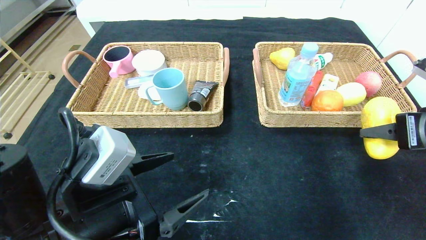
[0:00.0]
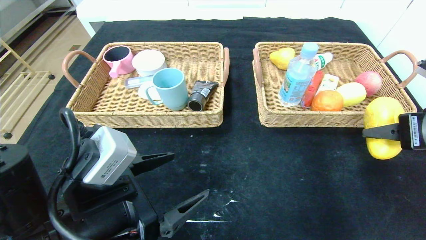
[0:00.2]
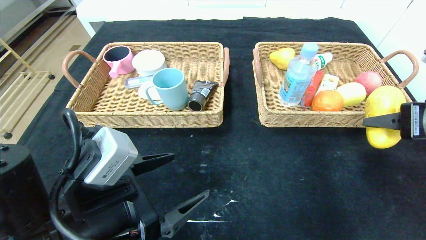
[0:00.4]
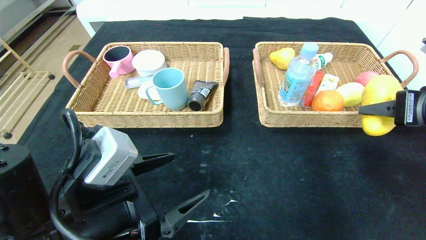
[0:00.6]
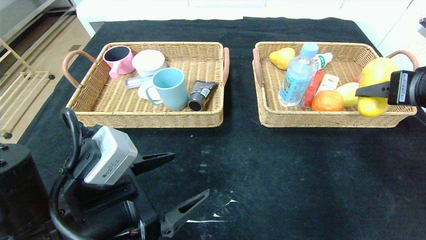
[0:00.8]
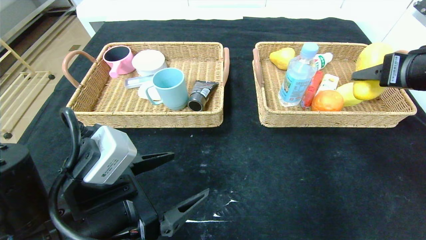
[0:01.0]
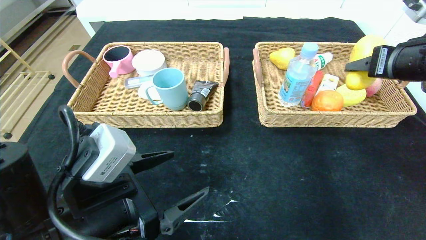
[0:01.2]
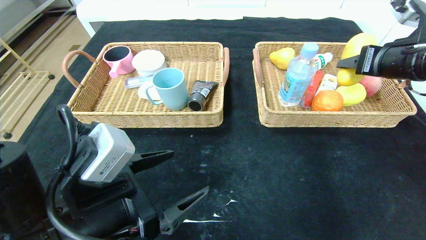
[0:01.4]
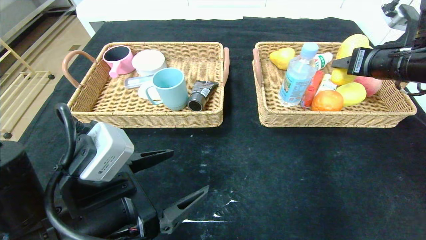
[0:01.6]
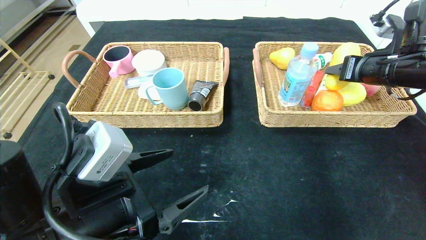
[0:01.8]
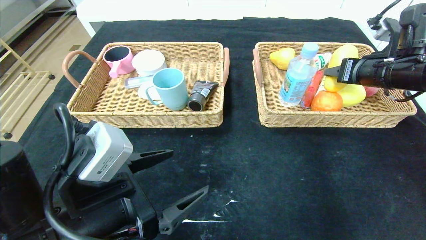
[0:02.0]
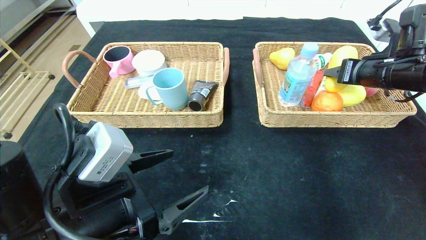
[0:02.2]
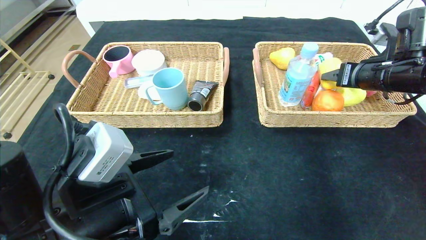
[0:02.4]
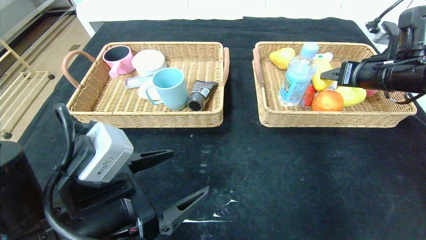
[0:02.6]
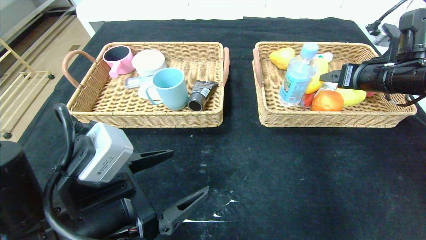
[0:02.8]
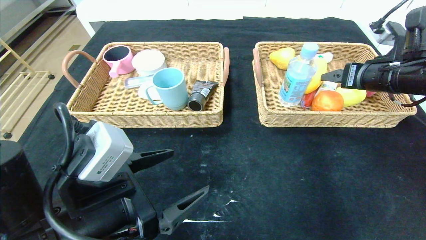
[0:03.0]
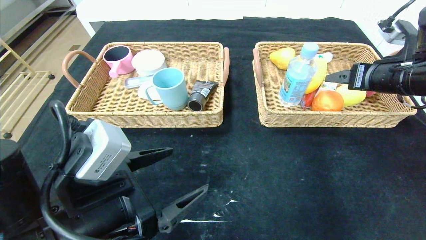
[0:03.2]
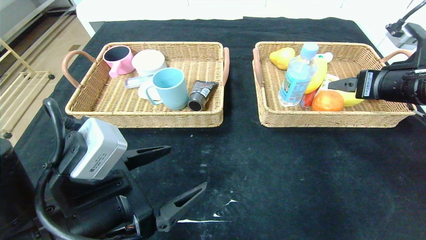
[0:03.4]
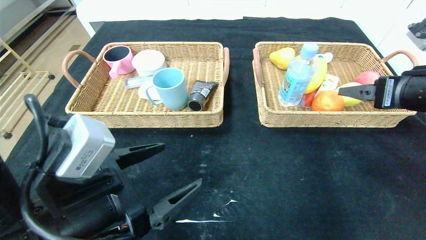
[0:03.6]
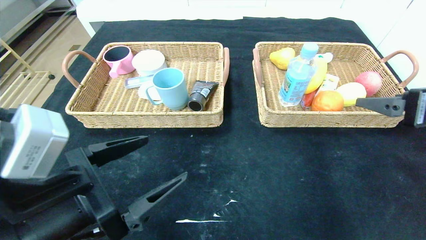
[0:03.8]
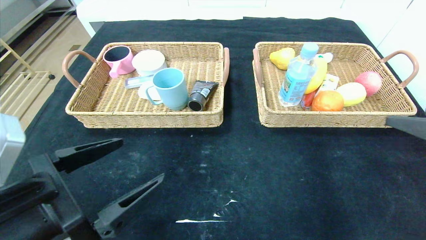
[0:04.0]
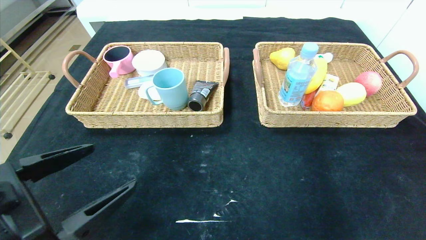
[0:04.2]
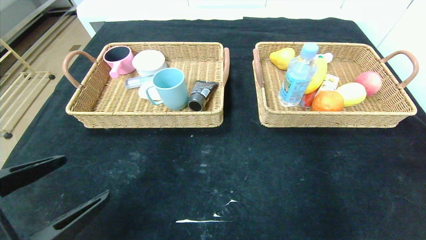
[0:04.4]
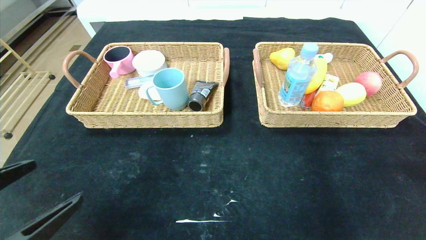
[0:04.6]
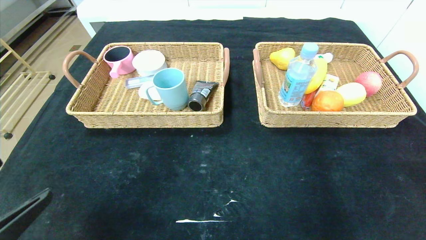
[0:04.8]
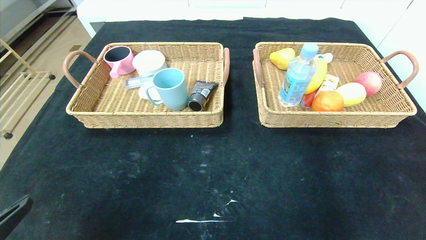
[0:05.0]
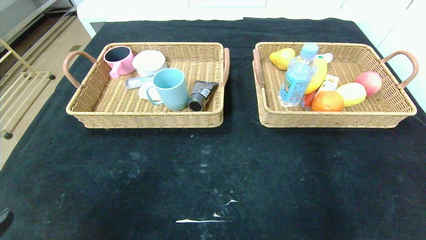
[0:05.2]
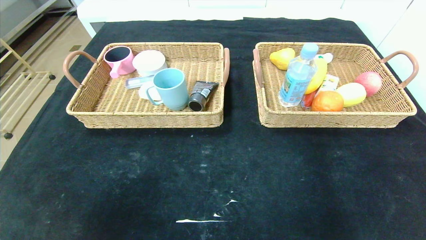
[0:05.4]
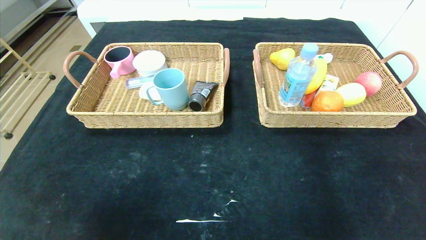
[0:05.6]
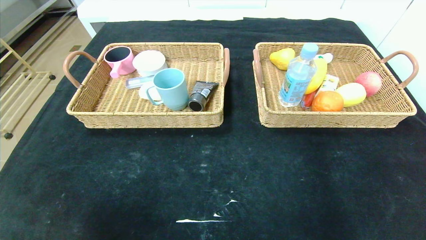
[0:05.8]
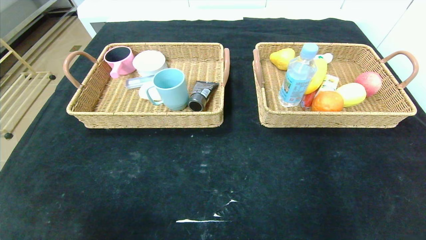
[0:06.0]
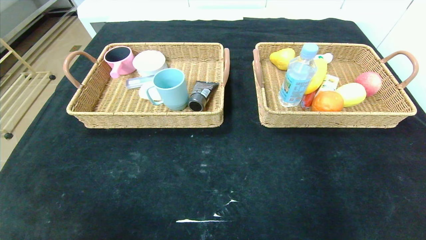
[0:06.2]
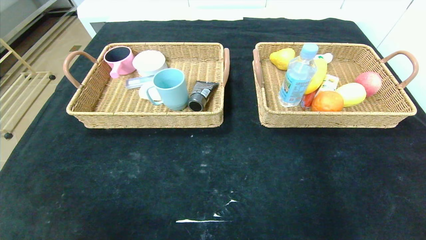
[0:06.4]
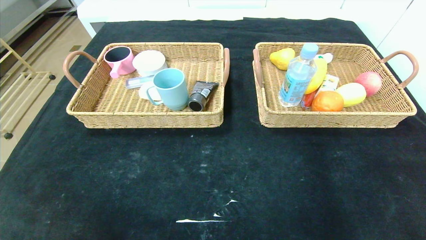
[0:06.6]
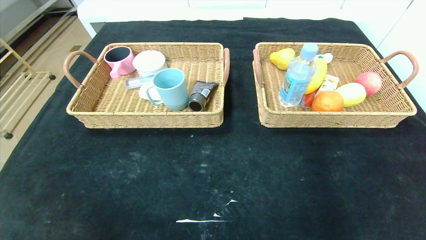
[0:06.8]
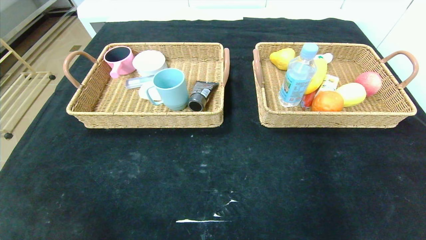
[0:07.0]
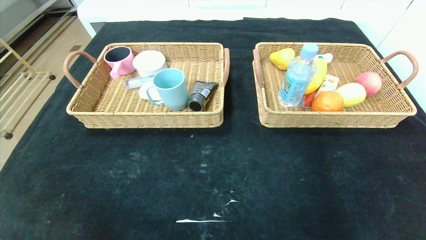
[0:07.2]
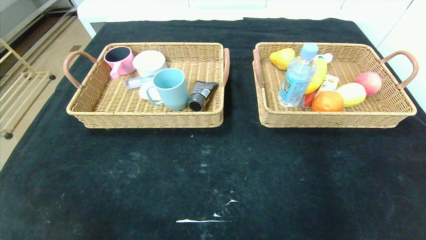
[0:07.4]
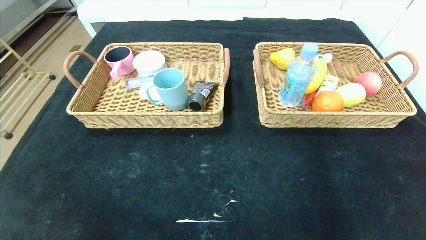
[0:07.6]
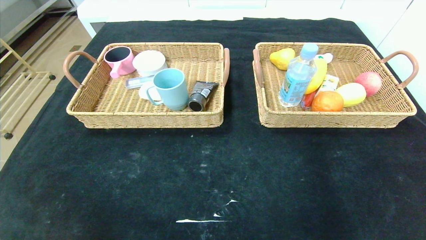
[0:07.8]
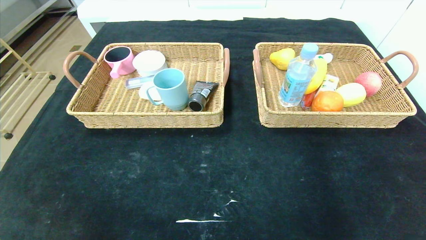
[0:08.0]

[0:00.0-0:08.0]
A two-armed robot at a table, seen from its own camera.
Step, 0:00.0 to 0:02.8: Grasp the mango and put it in the right basket.
0:00.0 to 0:01.6: The right gripper moves forward, some 15 cm.
0:01.6 to 0:03.2: The right gripper opens up.
0:03.2 to 0:04.8: The right gripper heads backward, covering roughly 35 cm, while the left gripper goes roughly 15 cm to the left and backward.
0:04.8 to 0:06.4: The left gripper shifts some 15 cm downward and backward.

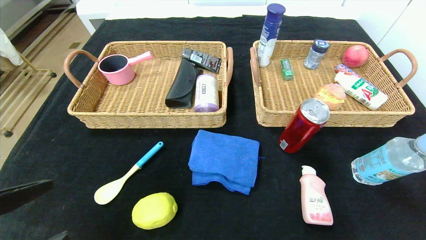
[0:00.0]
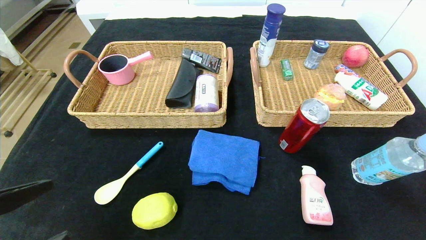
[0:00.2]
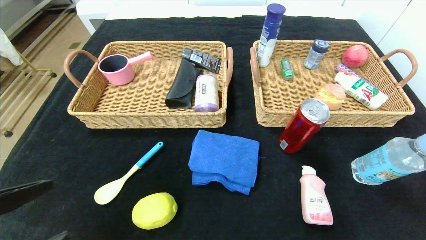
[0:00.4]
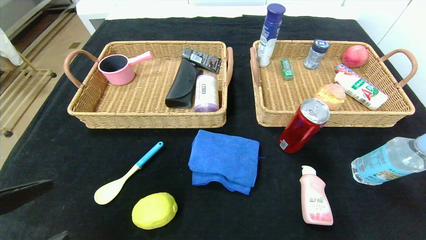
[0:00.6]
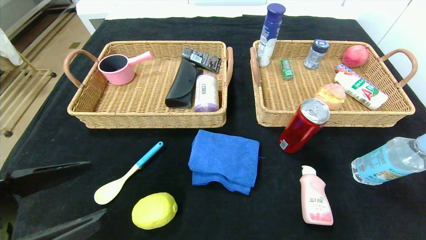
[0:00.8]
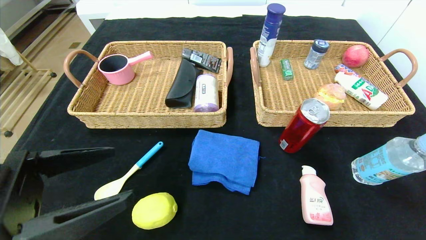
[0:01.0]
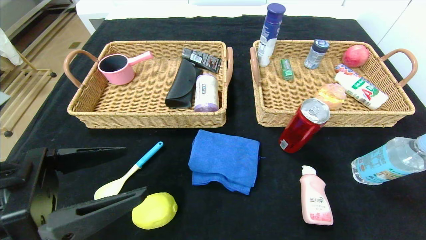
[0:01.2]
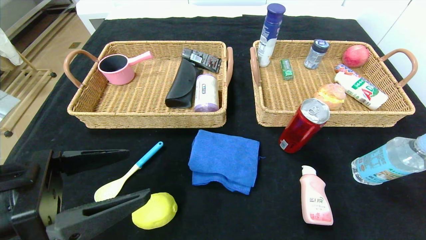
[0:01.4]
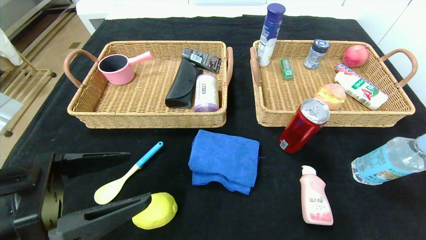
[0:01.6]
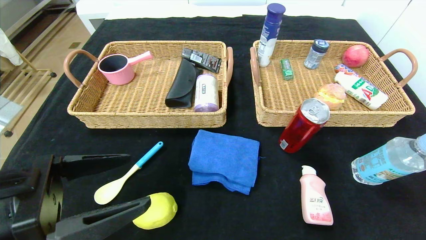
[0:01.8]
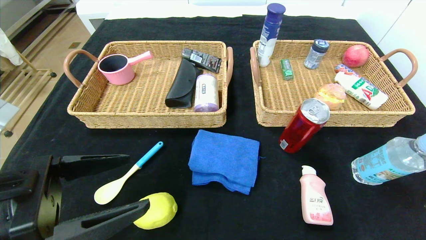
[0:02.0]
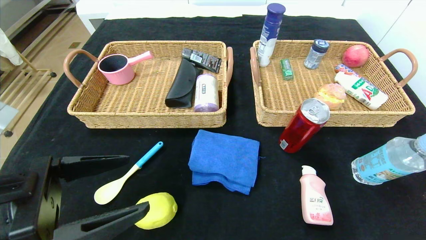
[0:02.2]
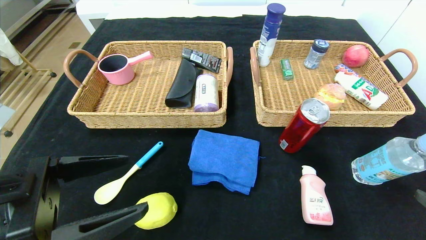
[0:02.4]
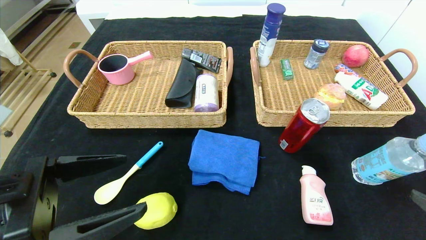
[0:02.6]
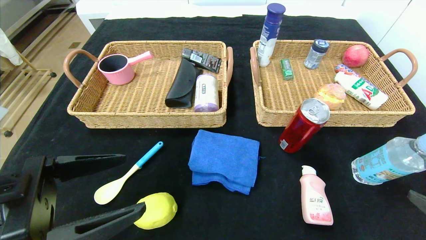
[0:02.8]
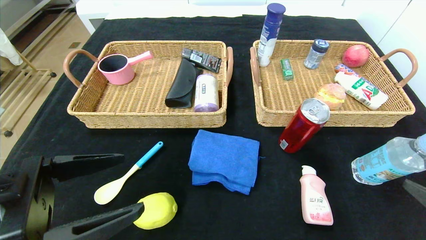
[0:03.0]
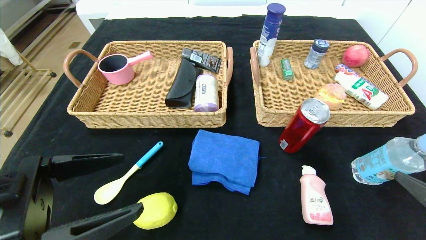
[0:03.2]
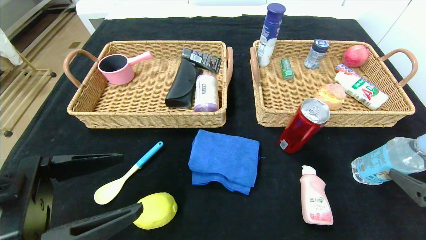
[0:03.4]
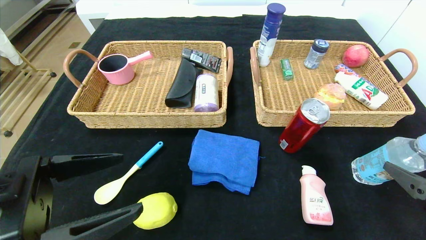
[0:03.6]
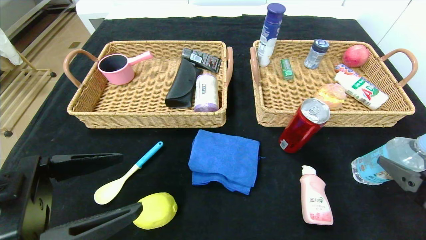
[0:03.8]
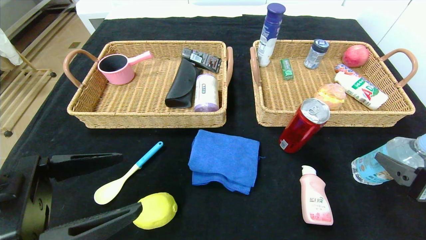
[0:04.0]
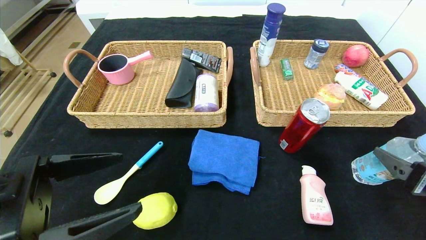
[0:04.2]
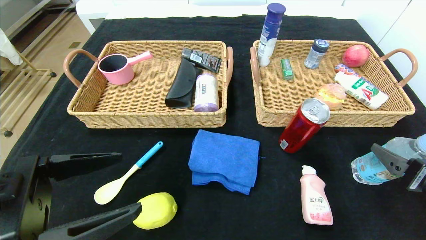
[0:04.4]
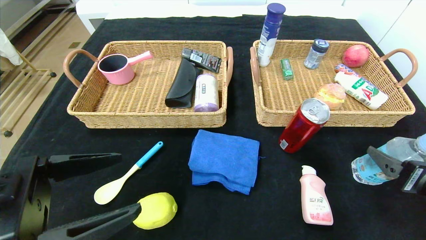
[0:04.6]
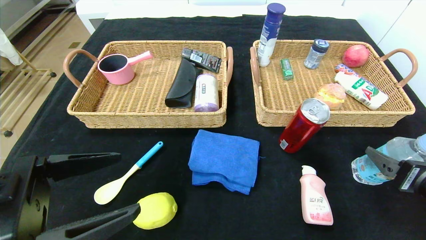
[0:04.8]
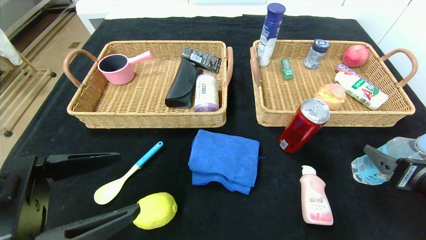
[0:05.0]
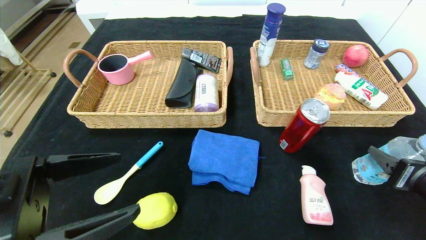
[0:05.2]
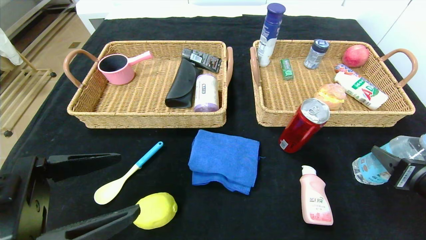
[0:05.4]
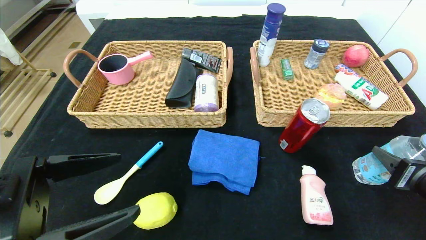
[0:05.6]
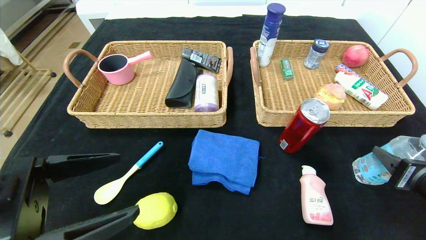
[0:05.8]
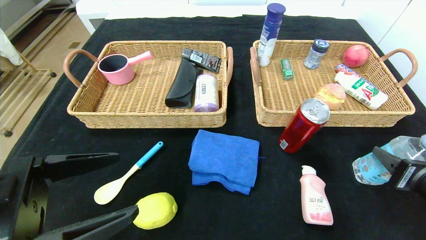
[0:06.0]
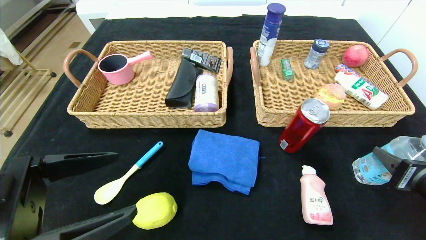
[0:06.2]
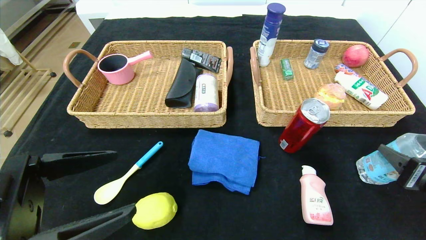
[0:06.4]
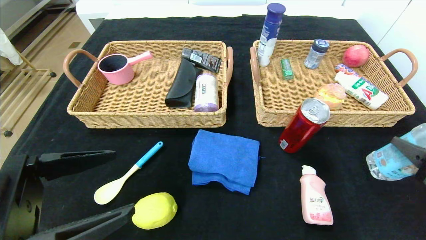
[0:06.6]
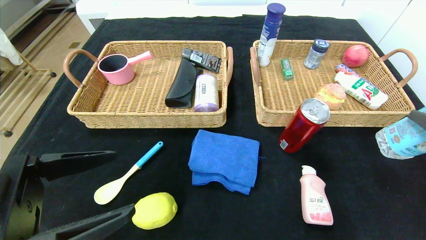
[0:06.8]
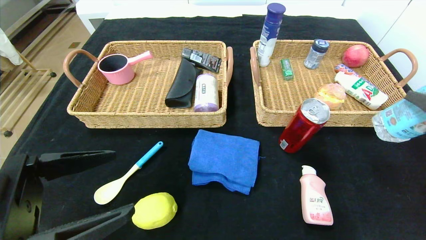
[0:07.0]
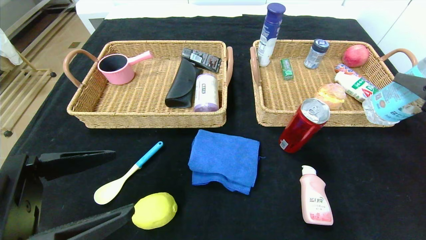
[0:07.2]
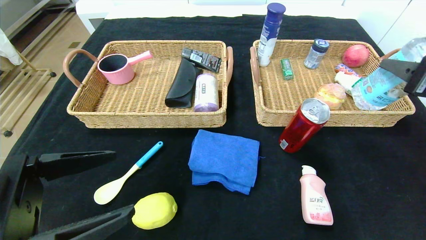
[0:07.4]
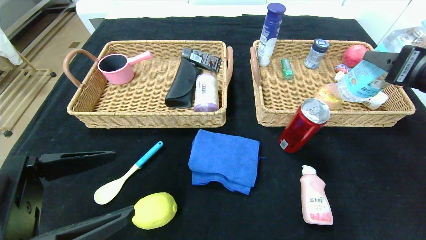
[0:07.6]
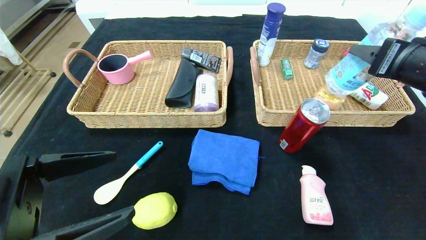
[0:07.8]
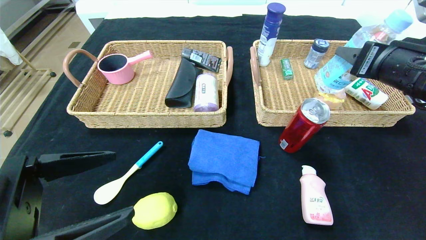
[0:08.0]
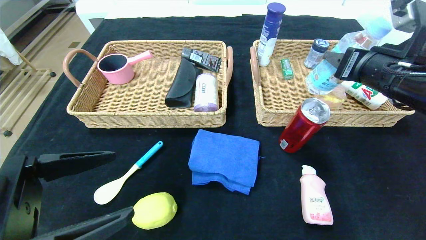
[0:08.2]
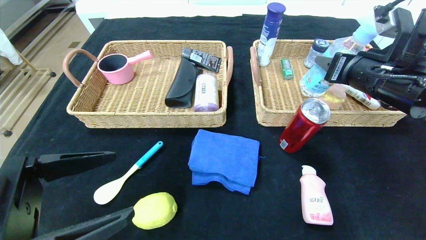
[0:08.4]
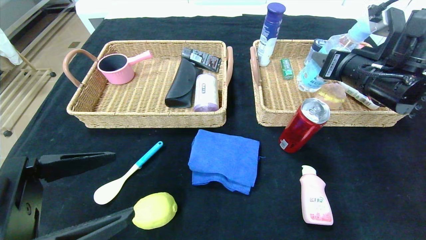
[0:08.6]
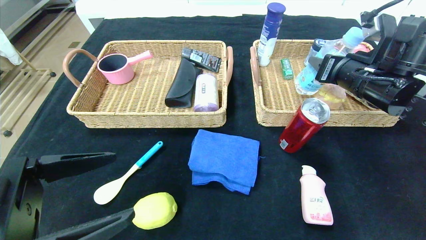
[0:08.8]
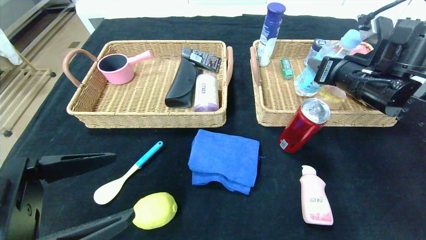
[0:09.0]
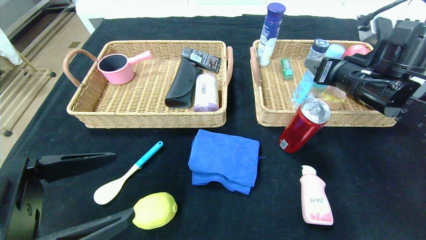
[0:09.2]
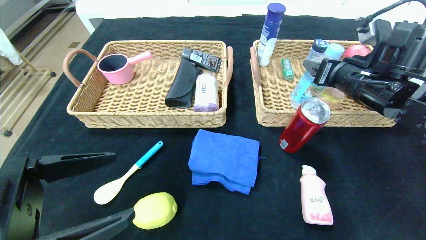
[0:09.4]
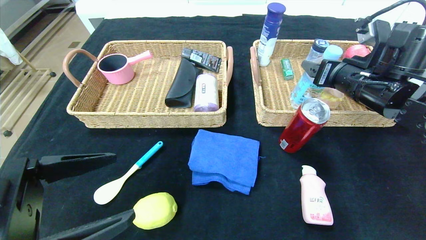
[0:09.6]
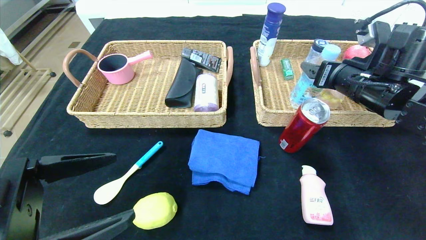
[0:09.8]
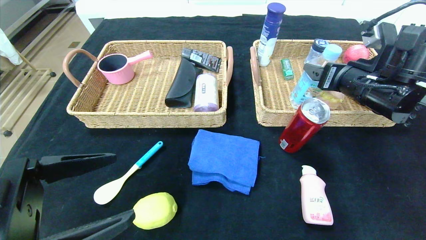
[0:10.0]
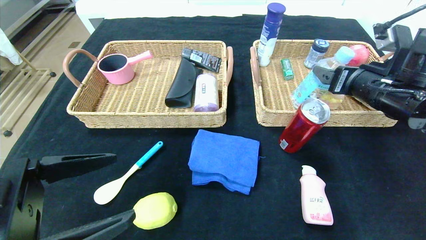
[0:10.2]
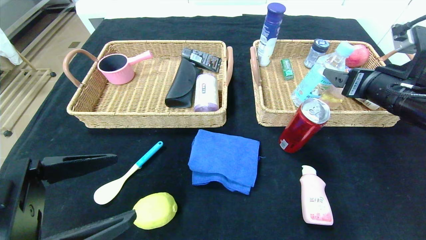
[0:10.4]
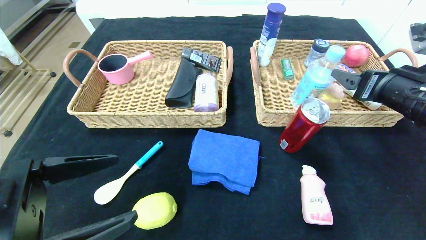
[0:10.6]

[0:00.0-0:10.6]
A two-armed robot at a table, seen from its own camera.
Step, 0:00.0 to 0:10.4: Grasp the soda water and put it in the right basket.
0:00.0 to 0:01.6: The left gripper travels forward by about 5 cm.
0:03.0 to 0:04.6: The right gripper shifts about 5 cm forward.
0:04.6 to 0:06.0: The right gripper closes its fingers.
0:06.0 to 0:07.6: The right gripper shifts some 15 cm upward.
0:07.6 to 0:09.0: The right gripper moves forward, about 10 cm.
0:09.0 to 0:10.6: The right gripper is displaced backward by about 5 cm, and opens.
